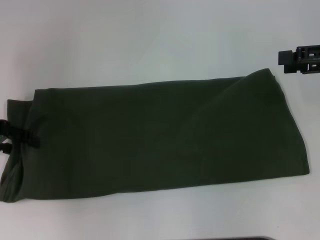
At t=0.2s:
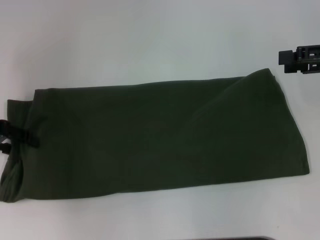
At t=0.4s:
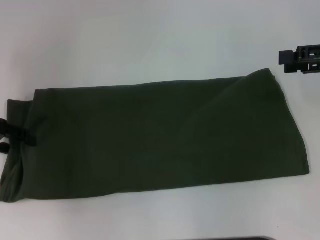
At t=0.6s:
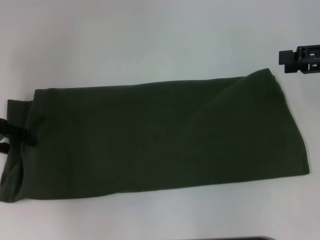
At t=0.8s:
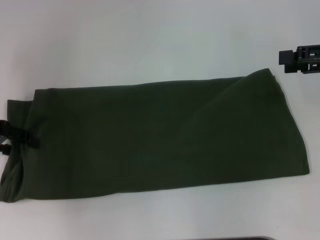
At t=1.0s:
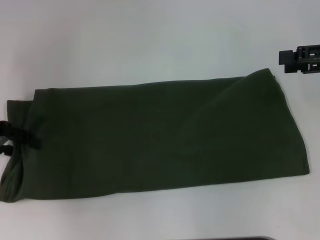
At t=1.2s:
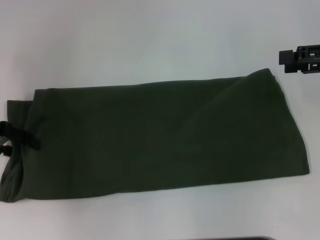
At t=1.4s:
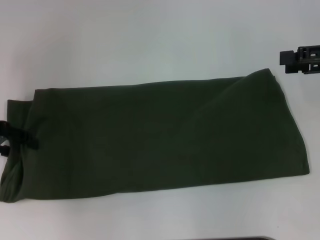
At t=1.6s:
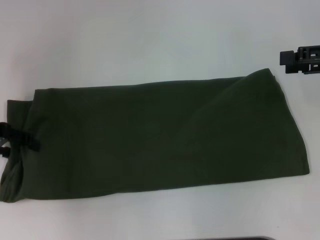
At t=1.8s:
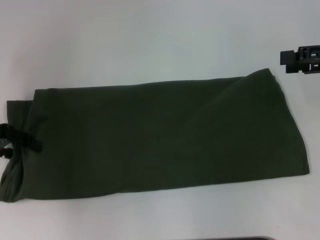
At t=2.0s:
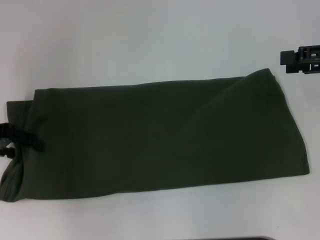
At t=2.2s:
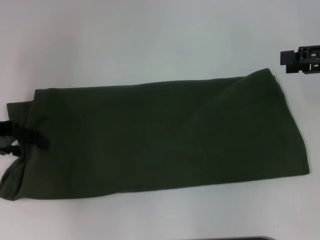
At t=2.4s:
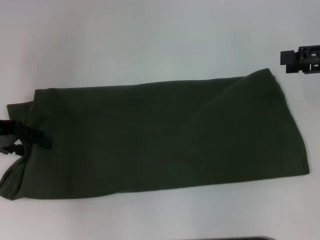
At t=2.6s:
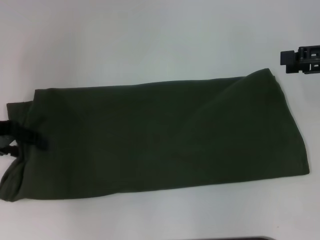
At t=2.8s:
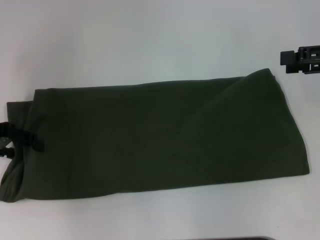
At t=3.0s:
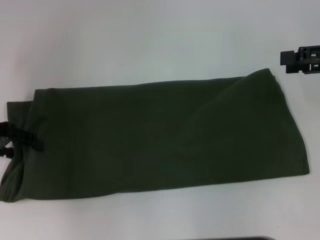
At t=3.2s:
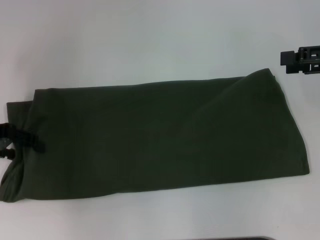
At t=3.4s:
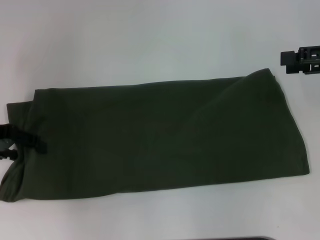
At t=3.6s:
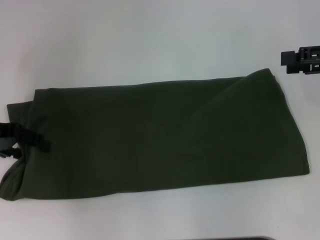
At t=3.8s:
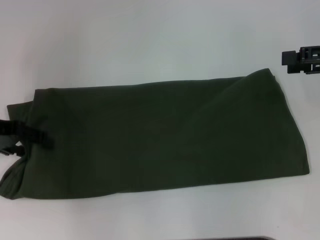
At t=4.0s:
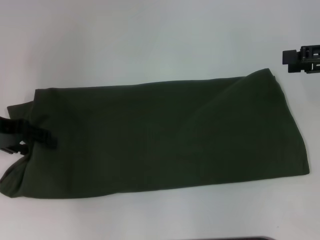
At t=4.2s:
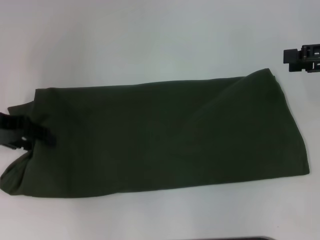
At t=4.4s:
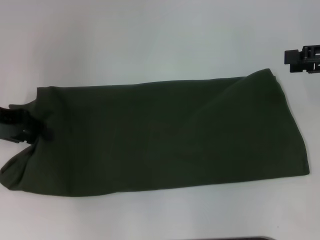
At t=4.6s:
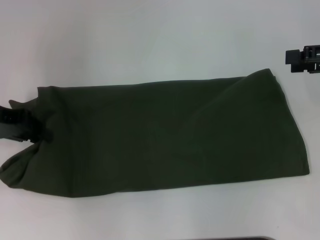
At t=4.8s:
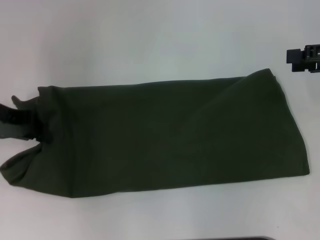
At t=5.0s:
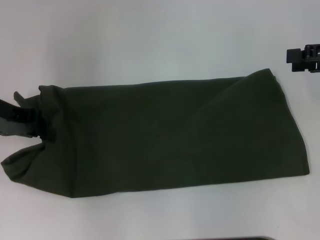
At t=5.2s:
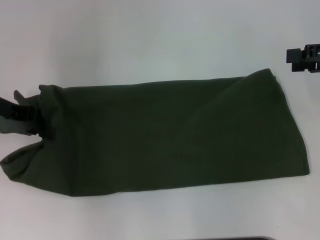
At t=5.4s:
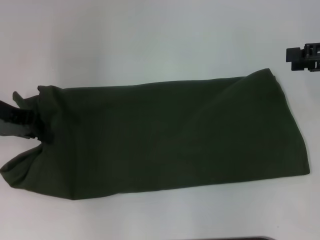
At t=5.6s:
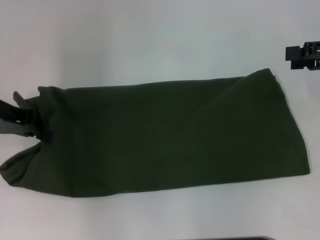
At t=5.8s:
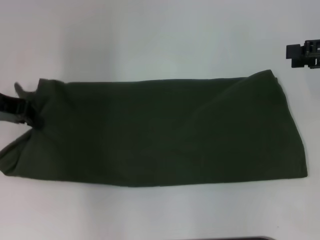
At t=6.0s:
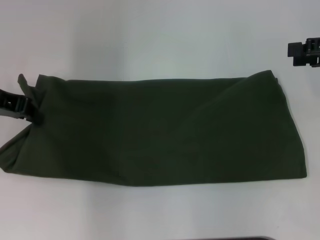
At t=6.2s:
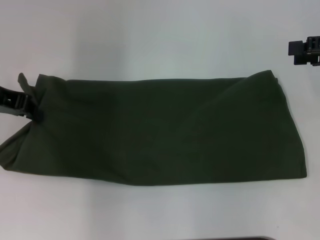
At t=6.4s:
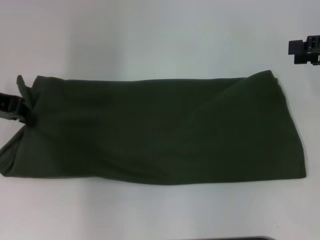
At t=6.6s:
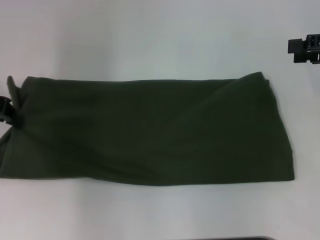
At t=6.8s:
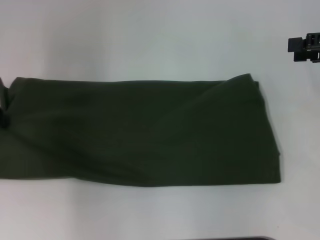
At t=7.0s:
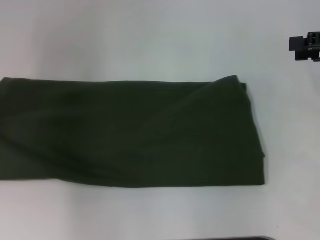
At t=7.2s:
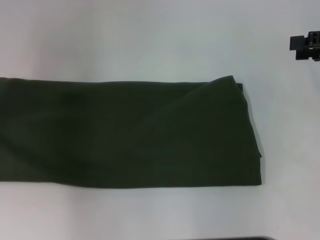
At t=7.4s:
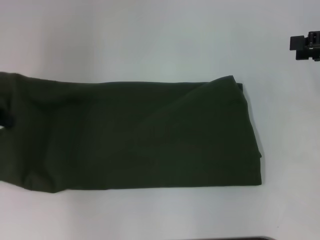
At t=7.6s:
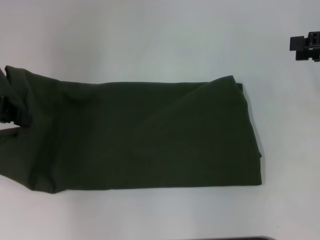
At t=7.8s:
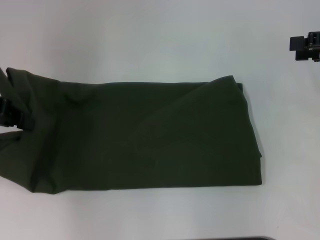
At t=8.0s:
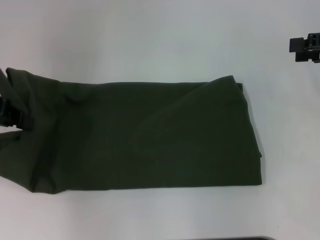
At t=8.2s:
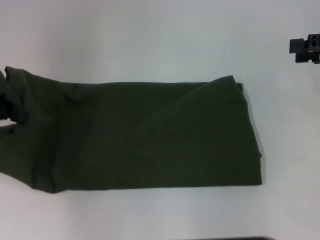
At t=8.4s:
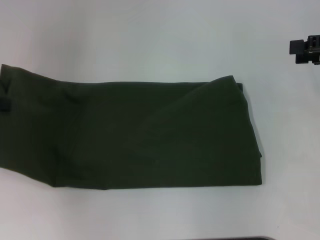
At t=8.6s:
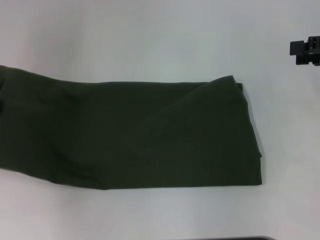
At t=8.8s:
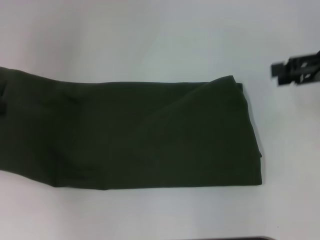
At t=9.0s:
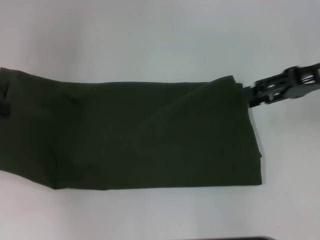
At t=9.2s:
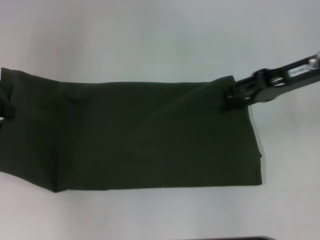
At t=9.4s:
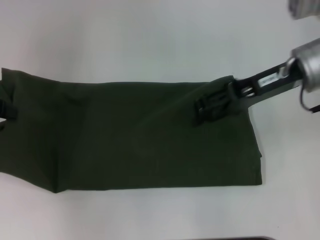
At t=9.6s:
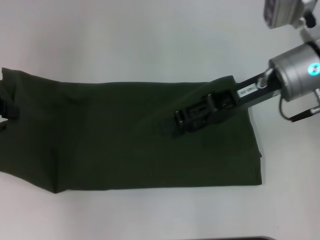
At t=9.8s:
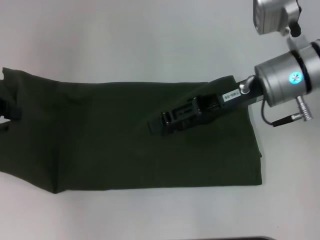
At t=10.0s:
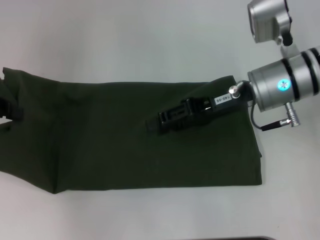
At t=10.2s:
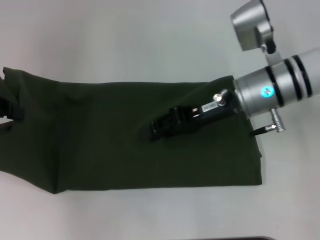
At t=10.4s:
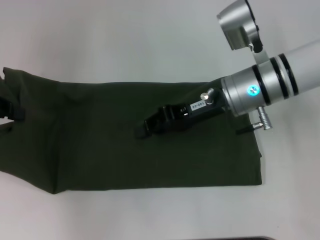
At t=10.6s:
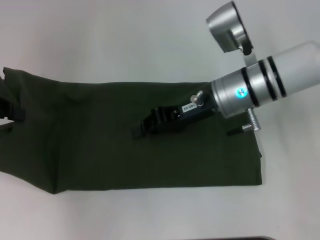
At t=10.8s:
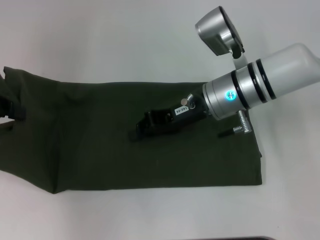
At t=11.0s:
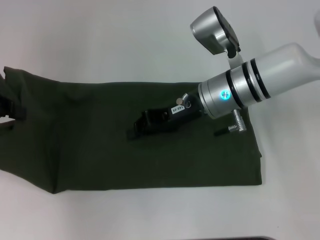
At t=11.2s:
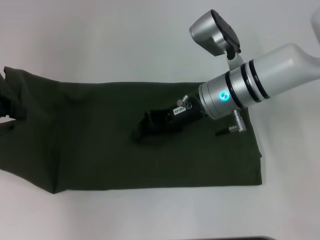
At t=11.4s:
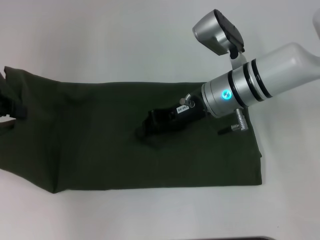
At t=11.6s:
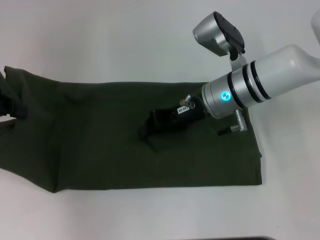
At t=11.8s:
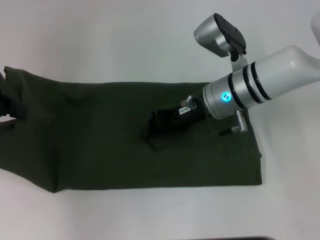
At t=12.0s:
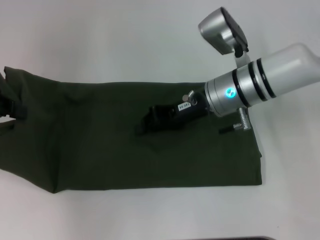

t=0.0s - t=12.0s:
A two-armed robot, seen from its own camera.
t=0.0s - t=1.6s: The two grippers keep their place.
t=3.0s - t=4.4s: There are only small adjustments of the grippers.
t=4.4s - t=6.0s: The left gripper changes place by about 5 cm, and closes.
t=7.6s - t=9.0s: The right gripper travels to the left by approximately 10 cm.
t=9.0s - t=10.4s: The right gripper moves to the left, some 15 cm, and closes up.
t=10.4s - t=12.0s: The right gripper closes its fingers.

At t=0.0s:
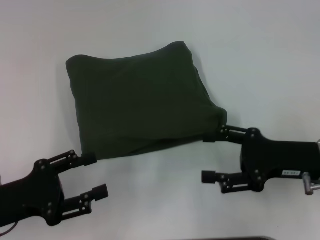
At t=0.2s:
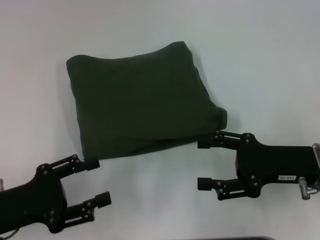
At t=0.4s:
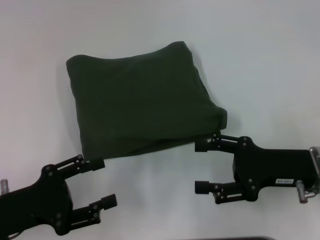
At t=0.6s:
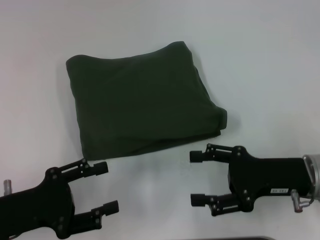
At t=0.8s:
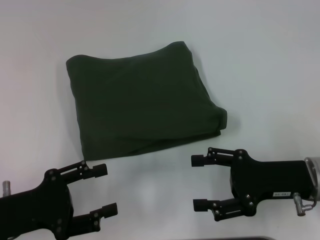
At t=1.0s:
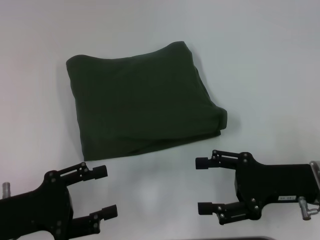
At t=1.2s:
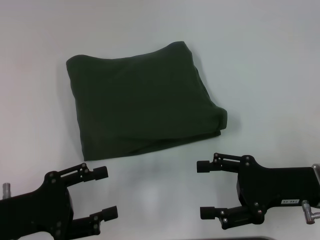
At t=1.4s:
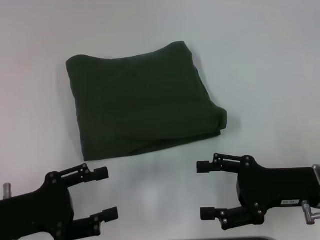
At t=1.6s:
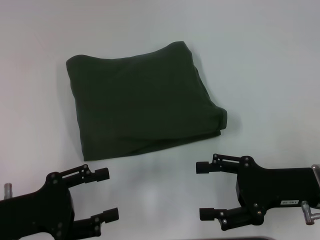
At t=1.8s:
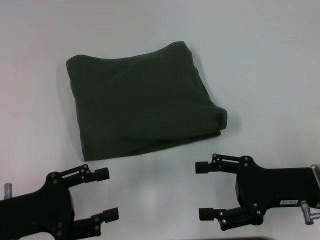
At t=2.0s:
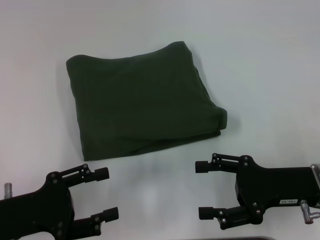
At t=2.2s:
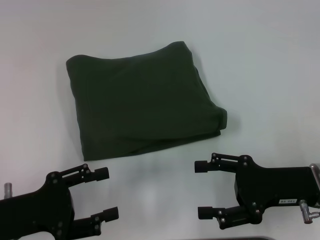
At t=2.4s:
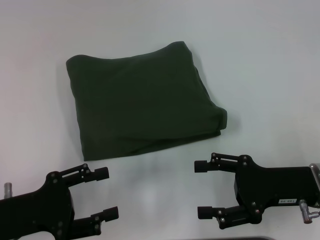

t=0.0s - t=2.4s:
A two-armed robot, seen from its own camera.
t=0.0s - t=1.2s: The grippers make only small movements.
t=1.2s - t=2.4s: Both grippers stay about where they are.
